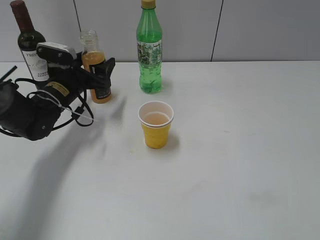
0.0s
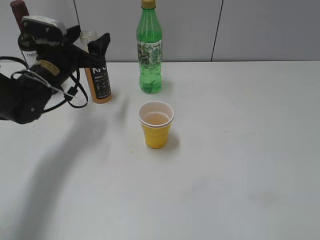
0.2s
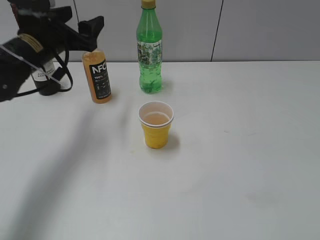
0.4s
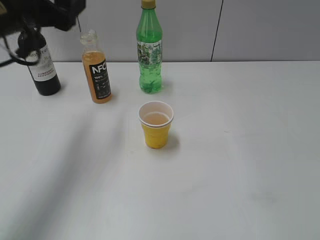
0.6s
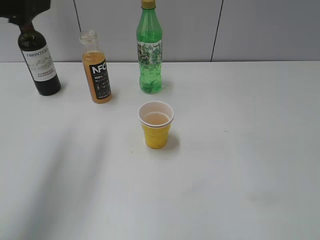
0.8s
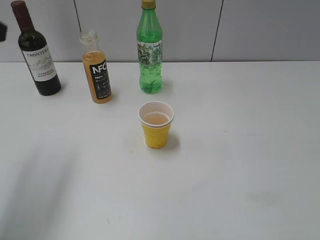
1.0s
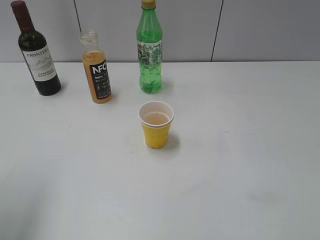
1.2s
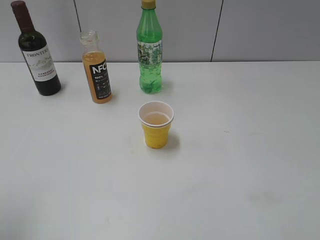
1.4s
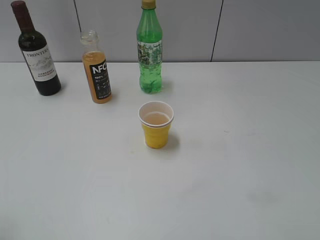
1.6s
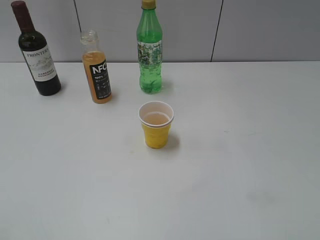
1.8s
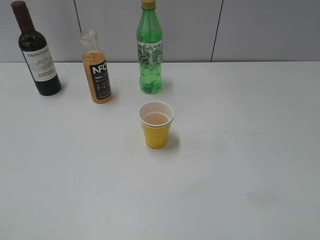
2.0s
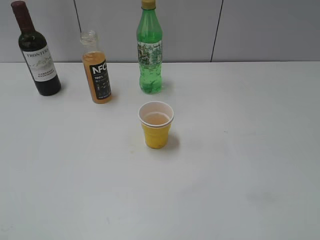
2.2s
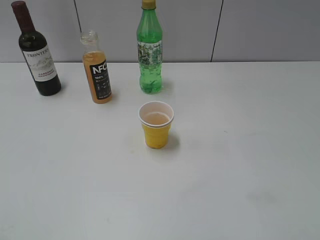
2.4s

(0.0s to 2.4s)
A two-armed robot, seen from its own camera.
0.0s - 1.2s: The left gripper heads upward and backward, covering some 30 cm.
1.2s - 2.4s: The left gripper is displaced backward by about 20 cm.

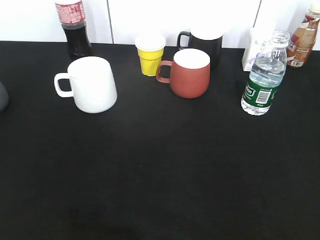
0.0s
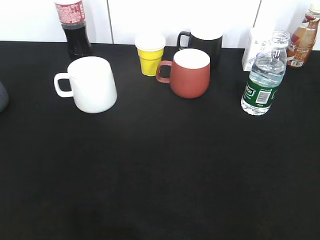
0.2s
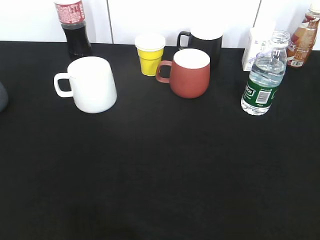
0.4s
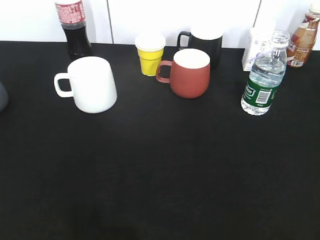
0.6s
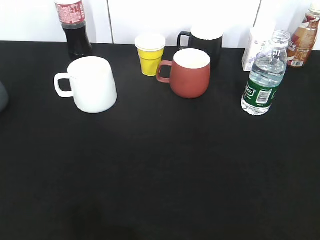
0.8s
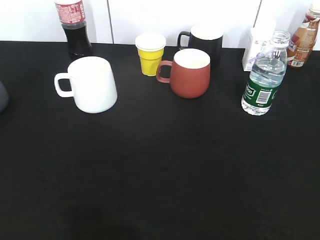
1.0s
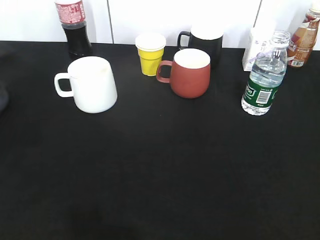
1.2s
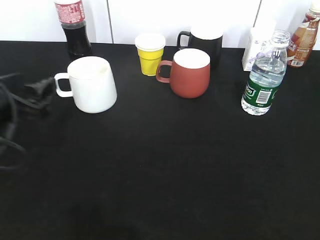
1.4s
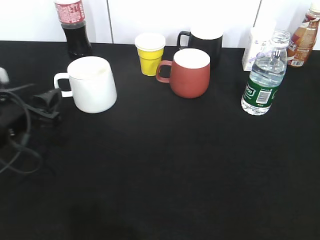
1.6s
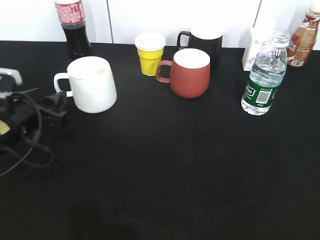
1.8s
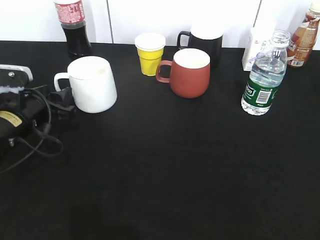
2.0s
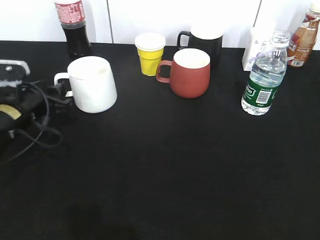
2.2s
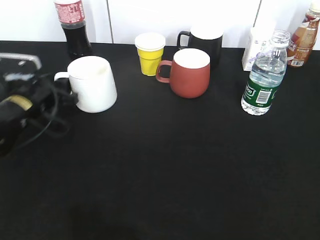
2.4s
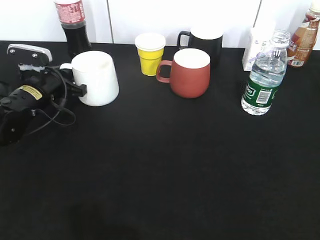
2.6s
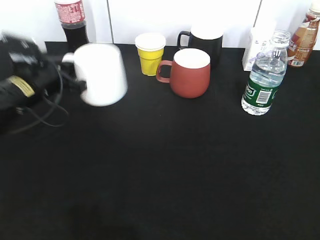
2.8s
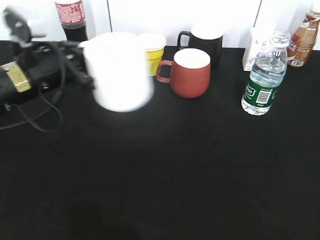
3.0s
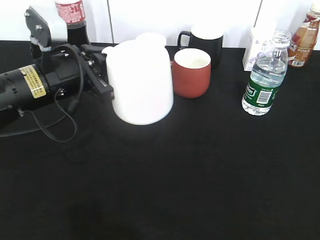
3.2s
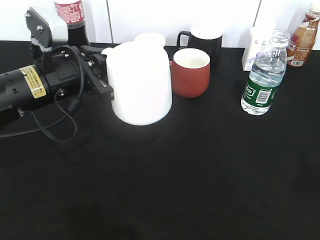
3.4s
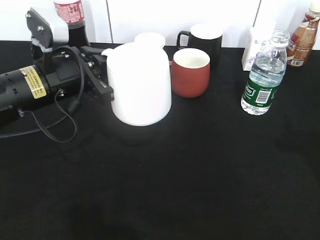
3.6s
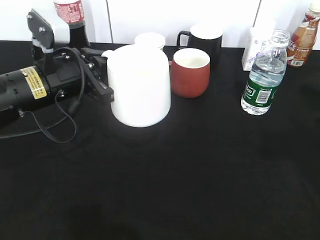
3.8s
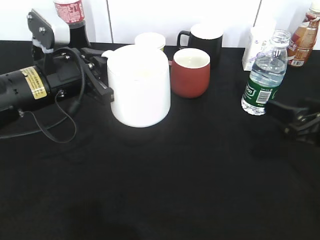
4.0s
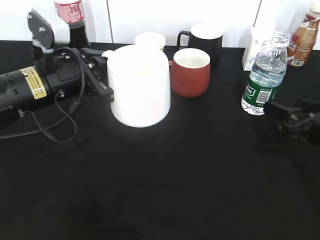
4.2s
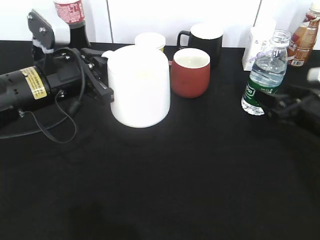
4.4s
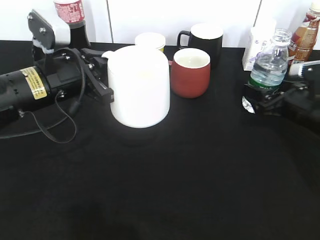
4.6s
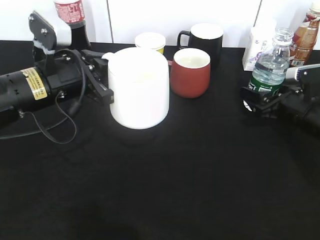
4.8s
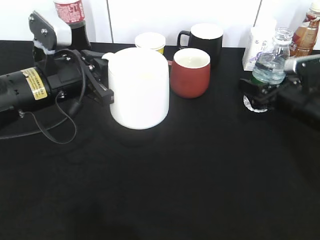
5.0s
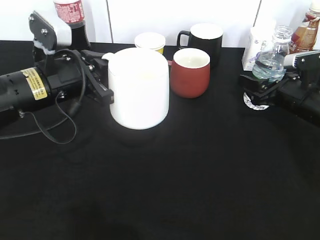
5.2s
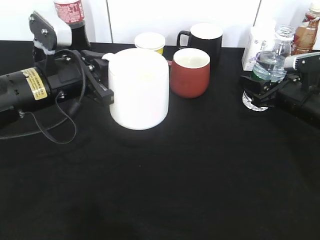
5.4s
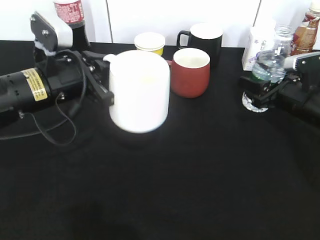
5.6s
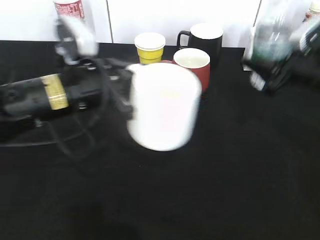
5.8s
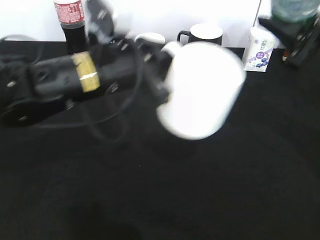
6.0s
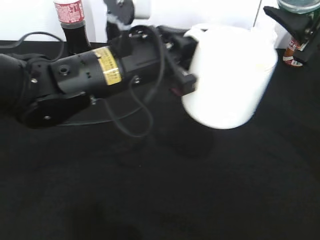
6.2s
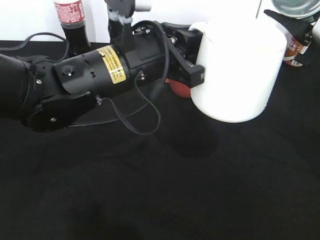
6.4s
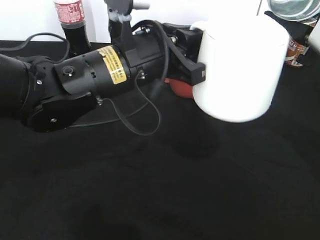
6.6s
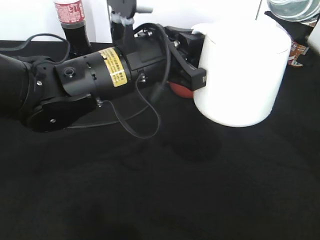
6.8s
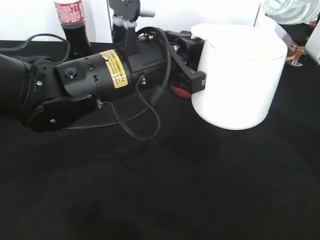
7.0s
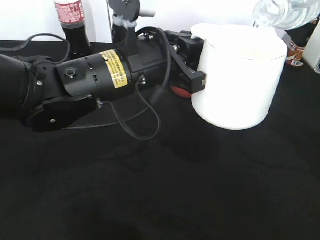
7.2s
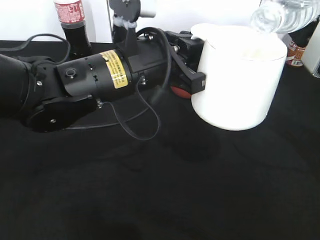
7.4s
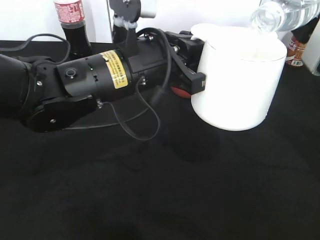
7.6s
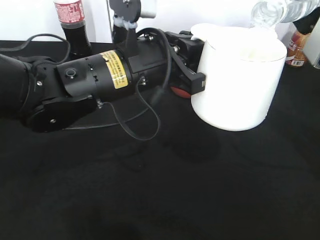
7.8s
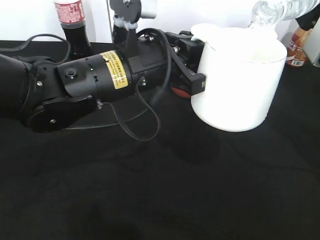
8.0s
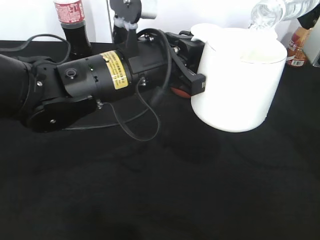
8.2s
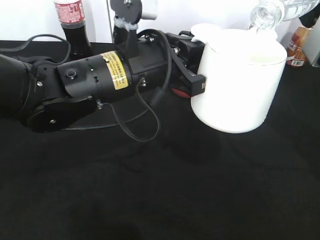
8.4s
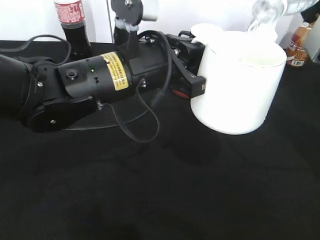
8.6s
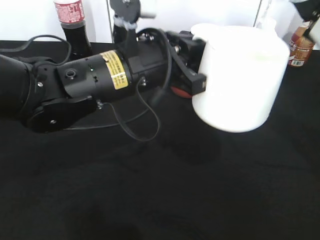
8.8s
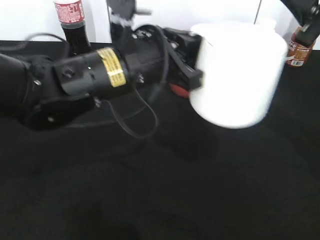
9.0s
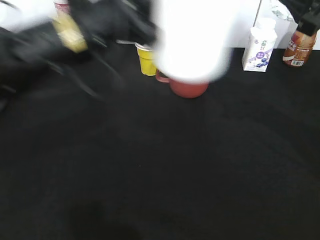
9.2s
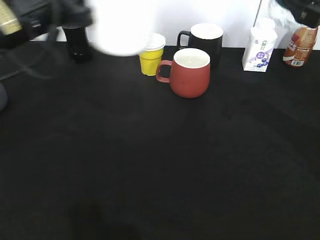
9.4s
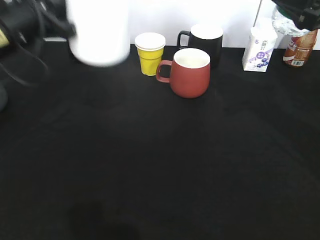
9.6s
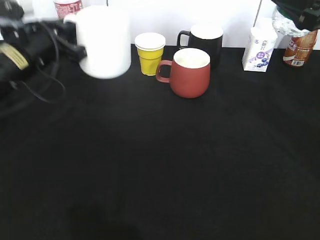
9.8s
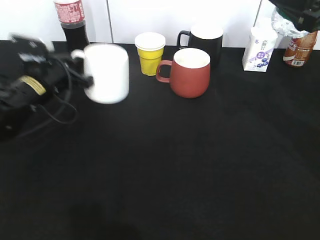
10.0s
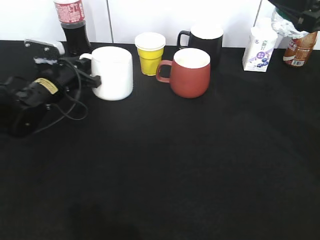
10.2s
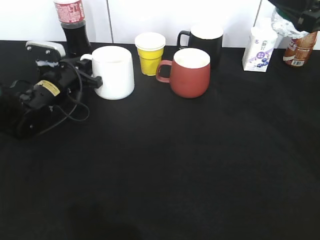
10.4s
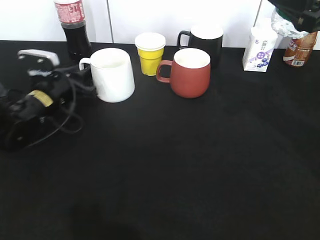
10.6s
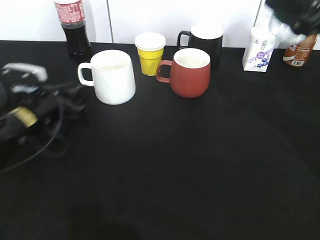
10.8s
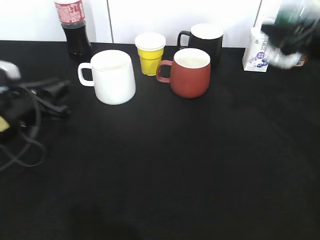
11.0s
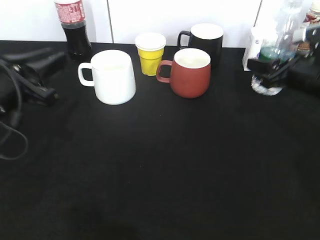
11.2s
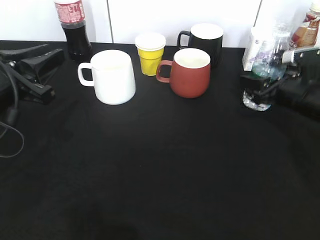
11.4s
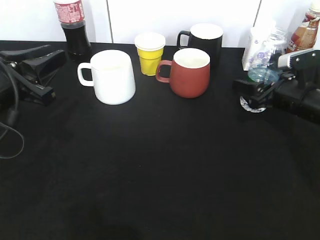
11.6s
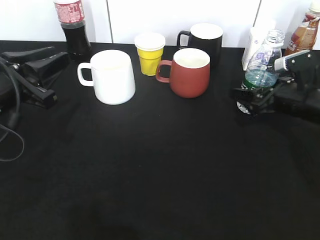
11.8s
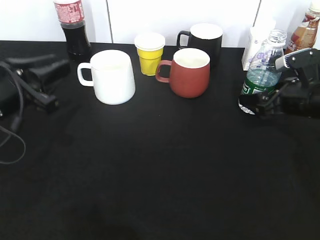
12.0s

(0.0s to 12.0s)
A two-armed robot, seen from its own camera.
Step, 0.6s - 2.6s: Grasp the white cup with left gripper.
Step, 2.8s - 3.0s: Lift the white cup with left gripper.
Step, 3.4s - 5.0s: Grasp the bottle with water with right gripper.
Step, 5.2s - 9.2s: Pour the water from bottle to cup with right gripper.
Step, 9.4s - 10.6s: Place the white cup on the table with left gripper.
0.0s - 1.6s: The left gripper moves forward and downward, some 30 cm, and opens its fingers.
1.6s - 3.0s: The left gripper heads forward, to the right and upward, covering approximately 10 cm, and closes.
3.0s - 4.4s: The right gripper shifts some 30 cm forward and downward, and opens its fingers.
4.4s - 6.0s: The left gripper travels to the right by about 10 cm; the right gripper moves upward, about 15 cm, and closes its fingers.
9.0s - 10.4s: The left gripper goes about 25 cm to the left, downward and forward.
10.4s - 12.0s: The right gripper goes approximately 15 cm downward, and opens its fingers. The left gripper moves backward and upward, about 20 cm.

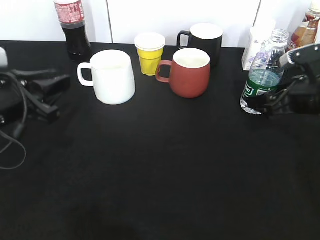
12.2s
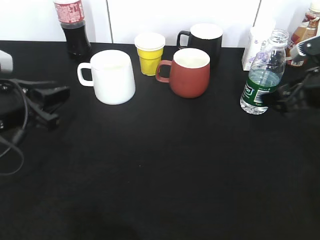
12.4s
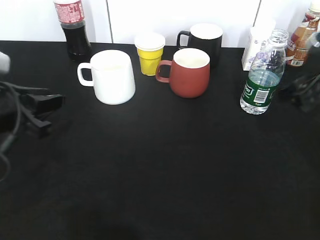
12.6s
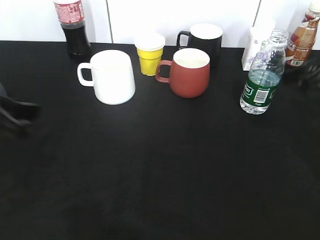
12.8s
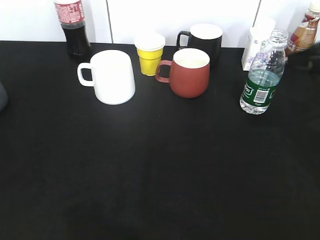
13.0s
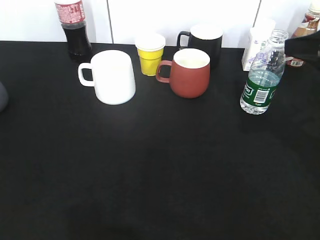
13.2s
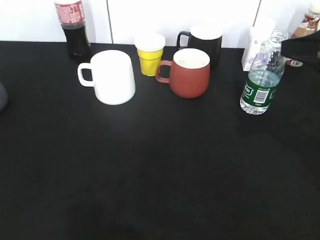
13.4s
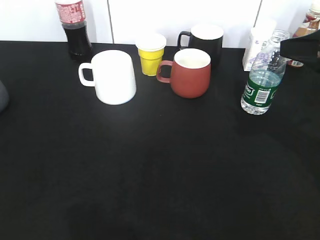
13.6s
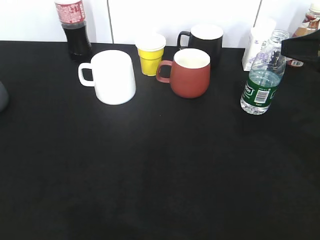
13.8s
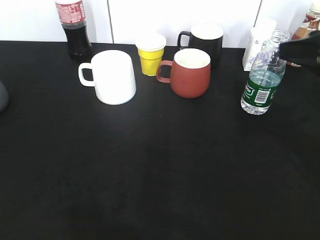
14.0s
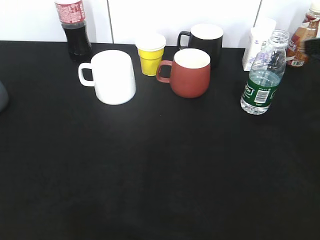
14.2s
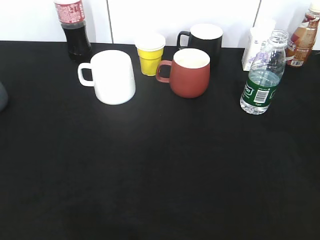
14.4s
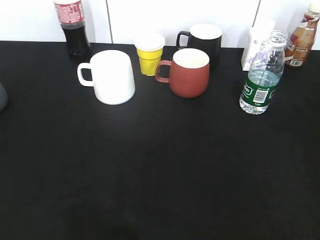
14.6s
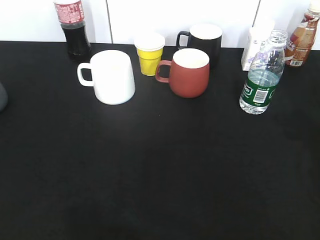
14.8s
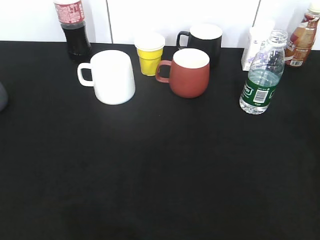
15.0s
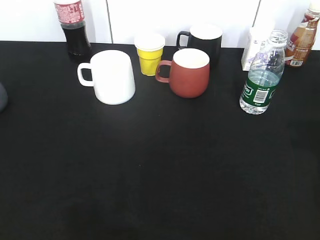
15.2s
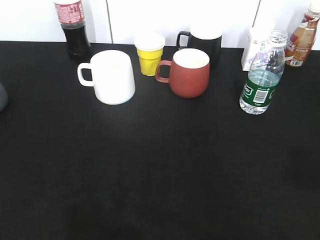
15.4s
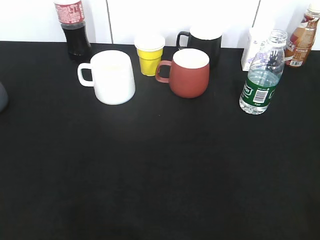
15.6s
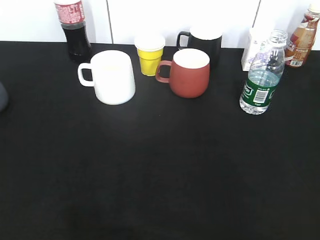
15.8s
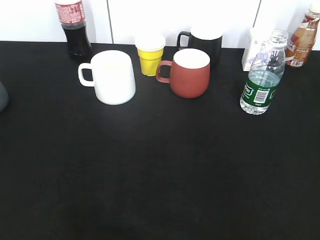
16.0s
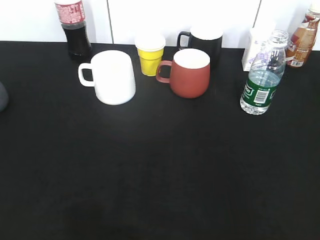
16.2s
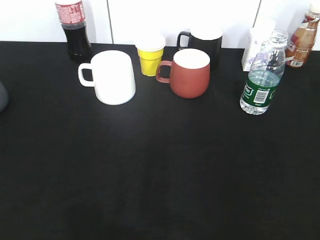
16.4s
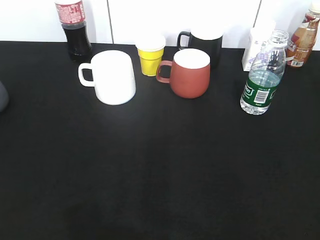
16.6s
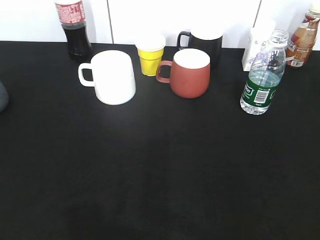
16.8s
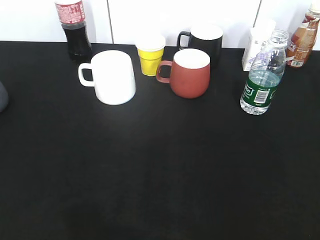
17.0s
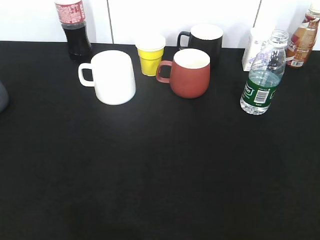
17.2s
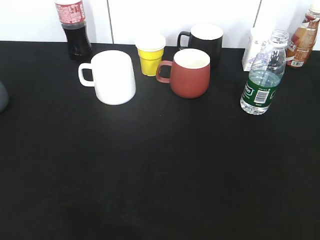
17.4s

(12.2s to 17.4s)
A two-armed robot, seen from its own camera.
12.2s - 14.0s: The right gripper travels upward and backward by roughly 15 cm. The left gripper goes some 25 cm backward and upward.
14.0s - 15.6s: The right gripper heads backward, covering about 20 cm.
15.6s - 17.4s: There are only small adjustments of the grippers.

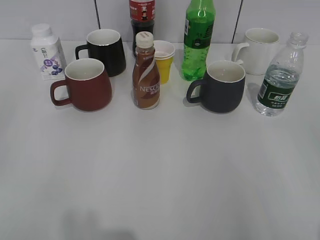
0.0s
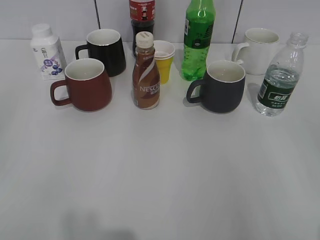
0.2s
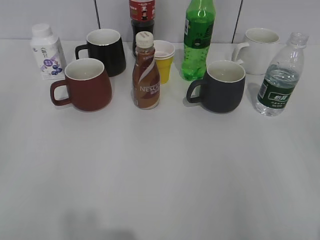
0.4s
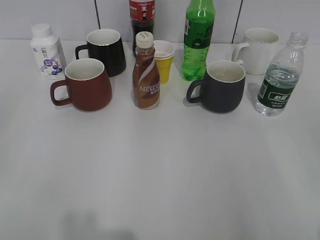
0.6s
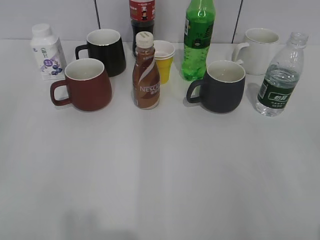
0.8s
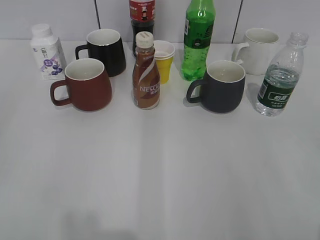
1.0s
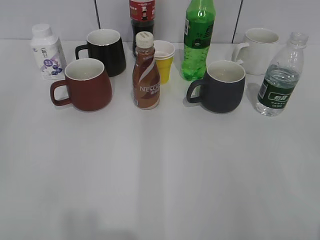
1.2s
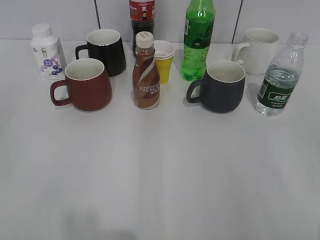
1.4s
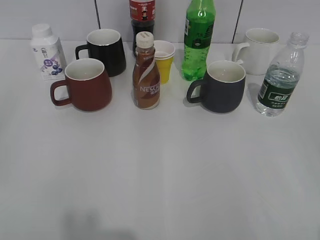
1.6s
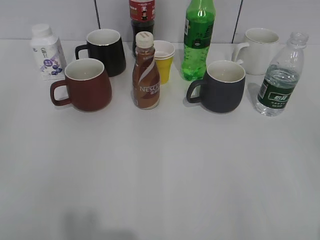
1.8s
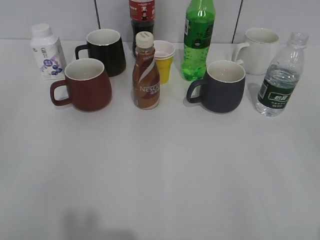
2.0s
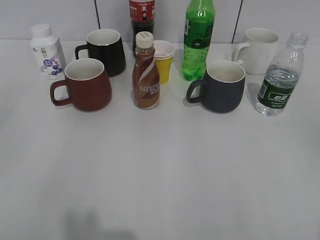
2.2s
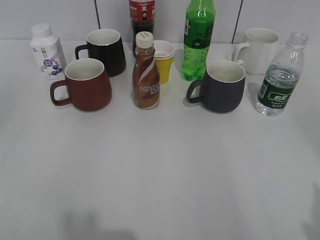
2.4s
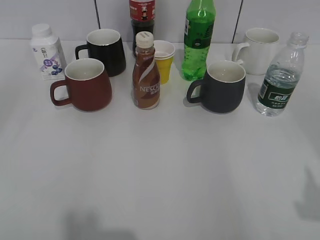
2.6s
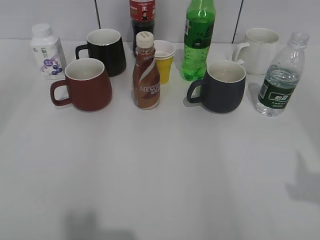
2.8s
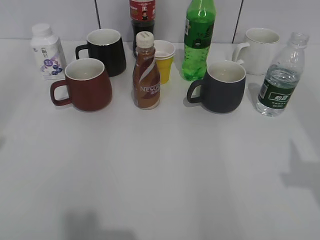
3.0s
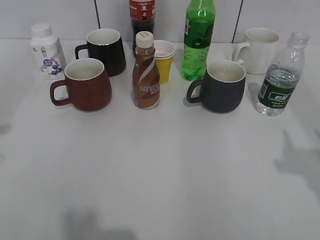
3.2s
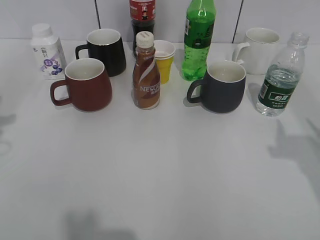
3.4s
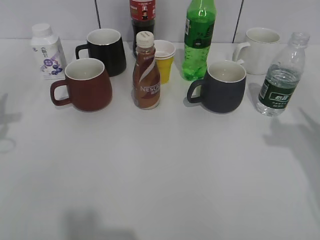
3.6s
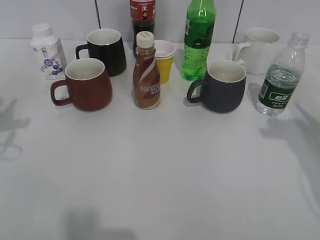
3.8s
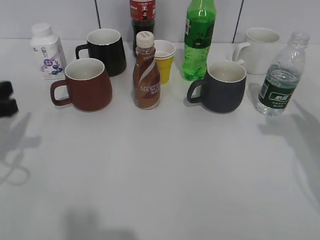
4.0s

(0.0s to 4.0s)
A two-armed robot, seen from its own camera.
2.6s - 4.0s: The right gripper is displaced forward by about 20 cm. The left gripper is displaced forward and downward by about 20 cm.
